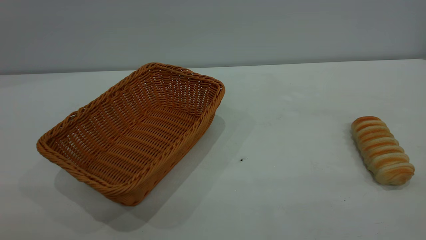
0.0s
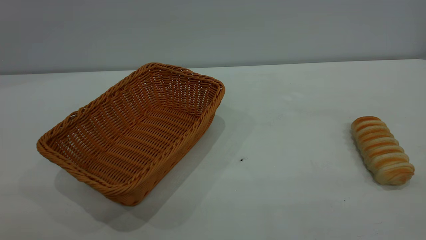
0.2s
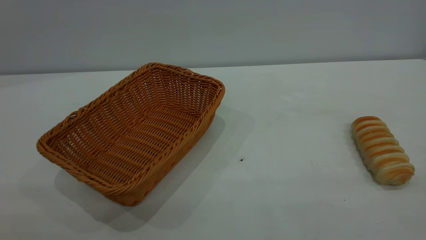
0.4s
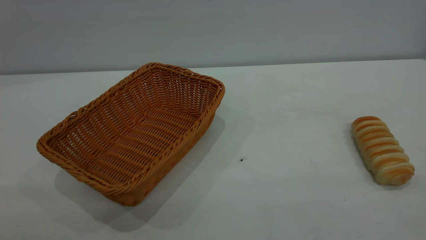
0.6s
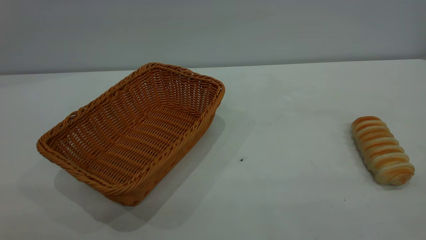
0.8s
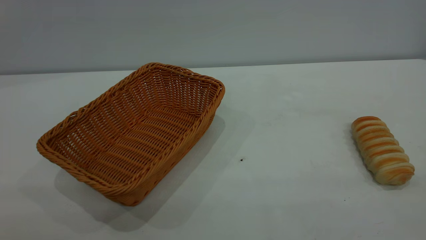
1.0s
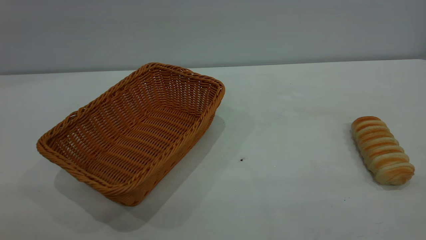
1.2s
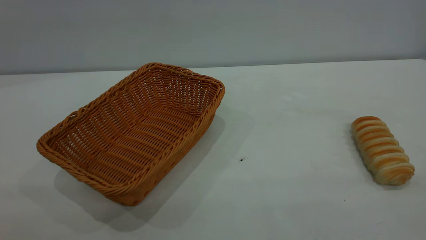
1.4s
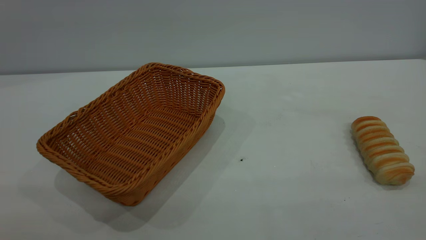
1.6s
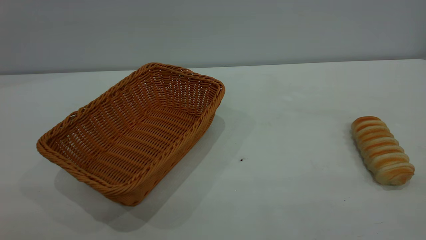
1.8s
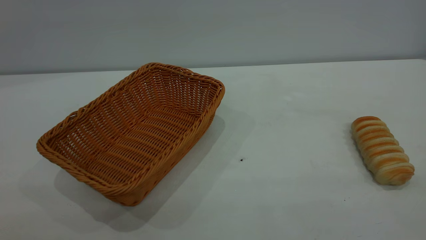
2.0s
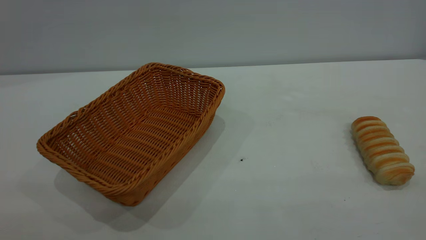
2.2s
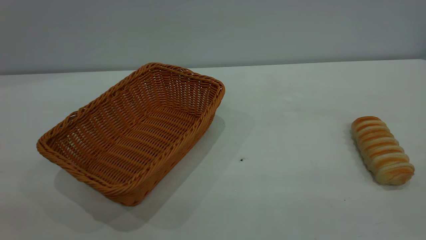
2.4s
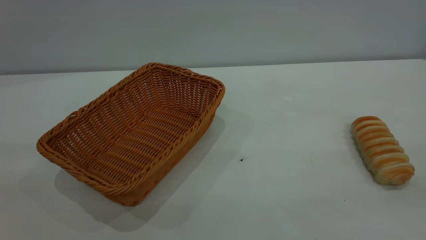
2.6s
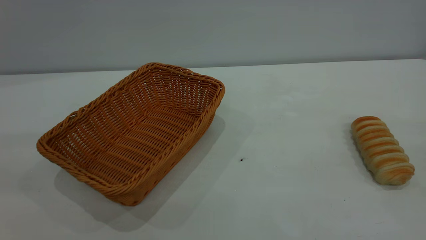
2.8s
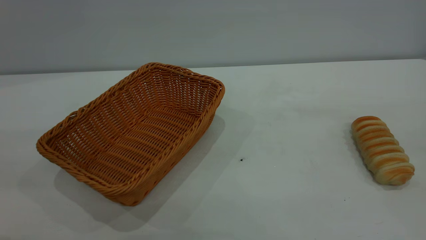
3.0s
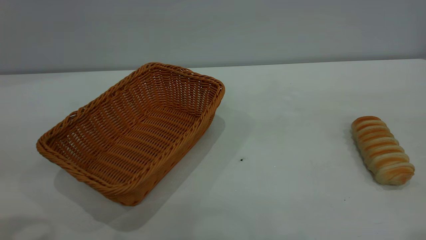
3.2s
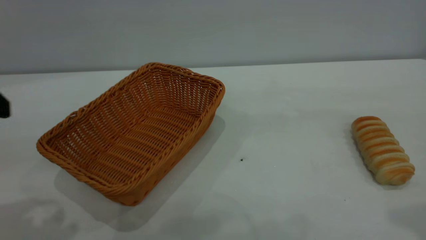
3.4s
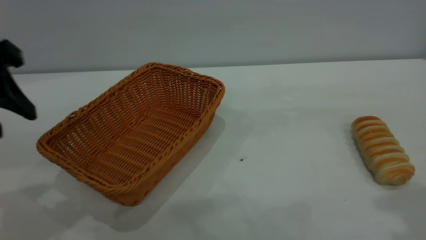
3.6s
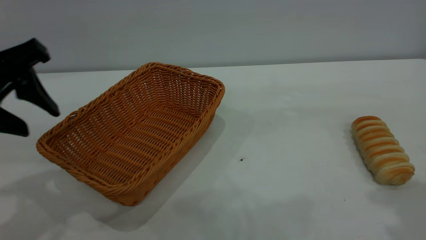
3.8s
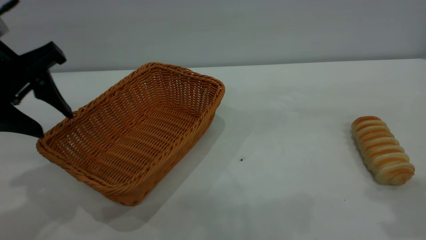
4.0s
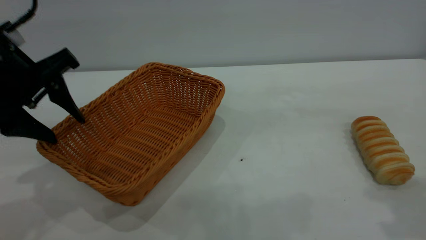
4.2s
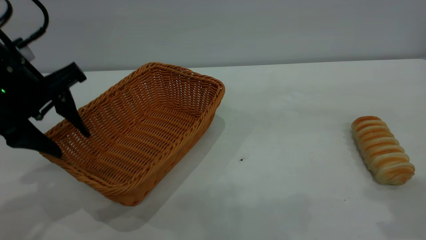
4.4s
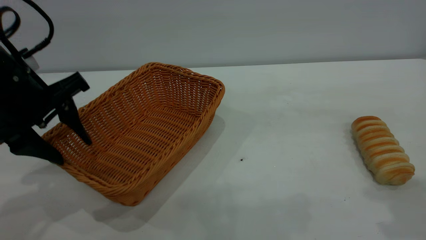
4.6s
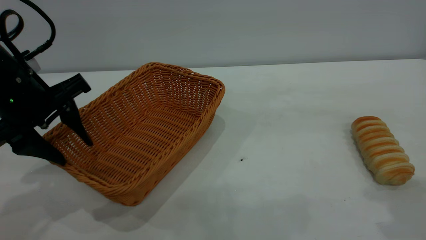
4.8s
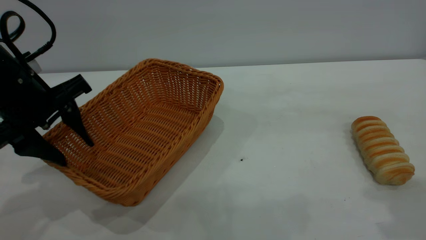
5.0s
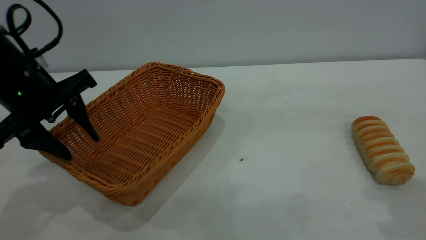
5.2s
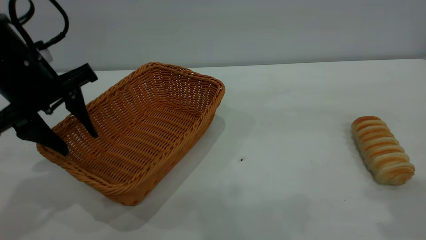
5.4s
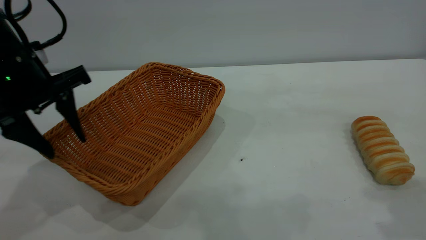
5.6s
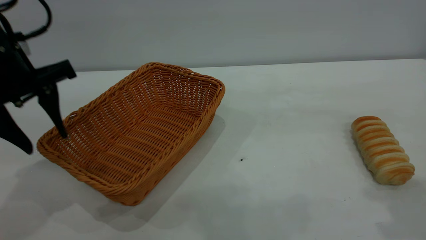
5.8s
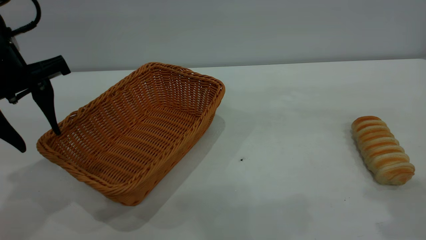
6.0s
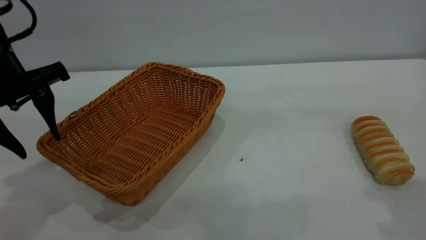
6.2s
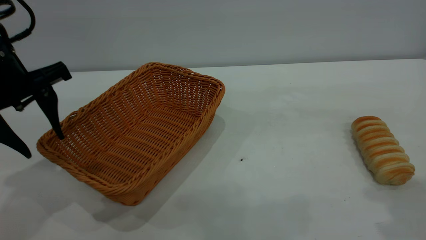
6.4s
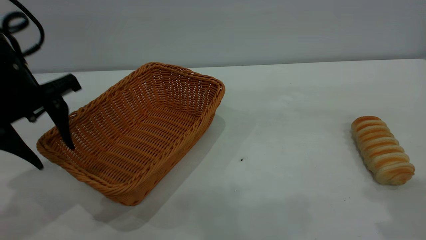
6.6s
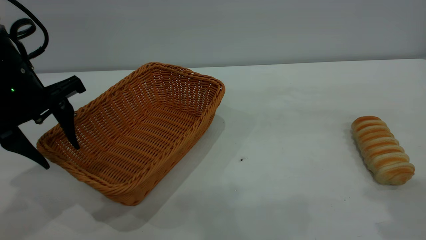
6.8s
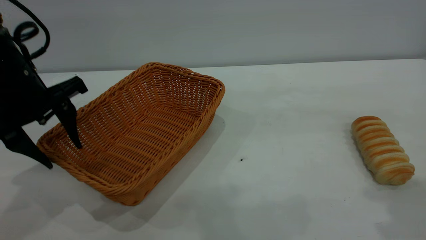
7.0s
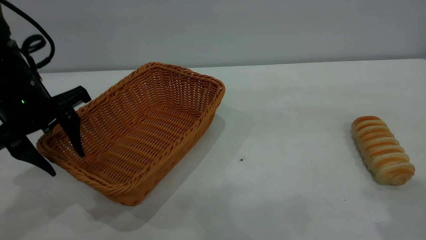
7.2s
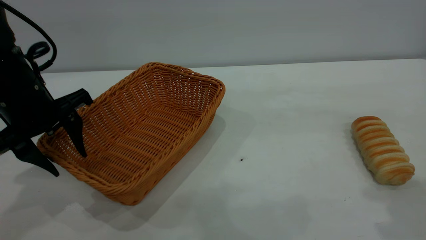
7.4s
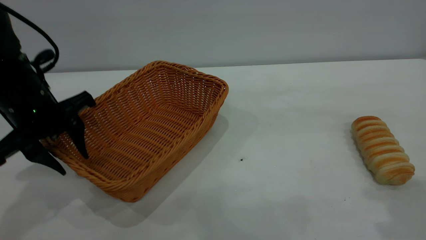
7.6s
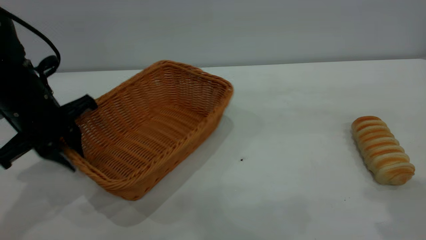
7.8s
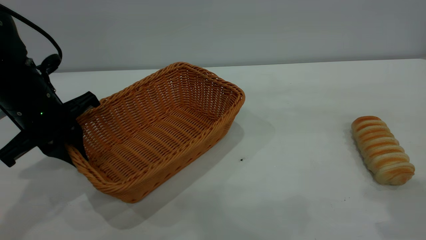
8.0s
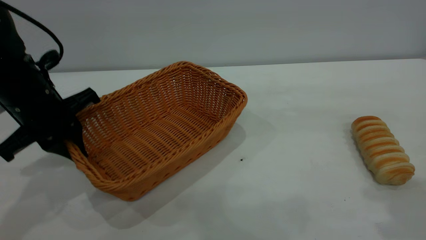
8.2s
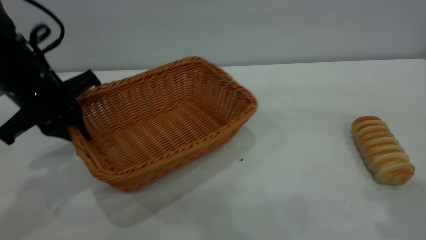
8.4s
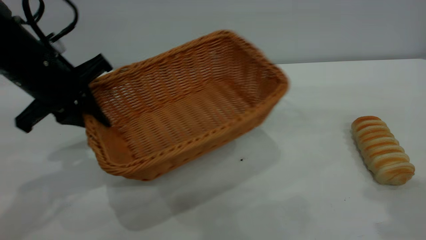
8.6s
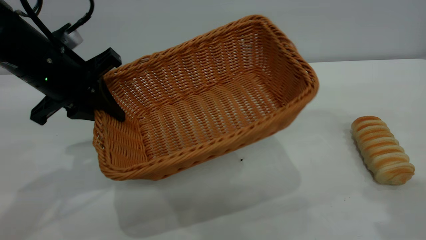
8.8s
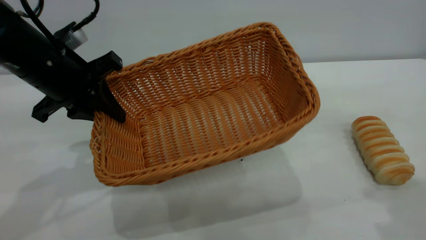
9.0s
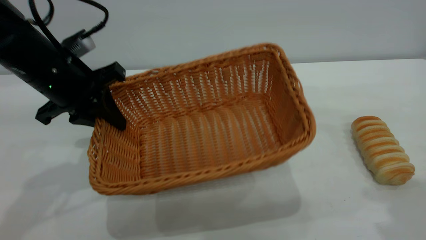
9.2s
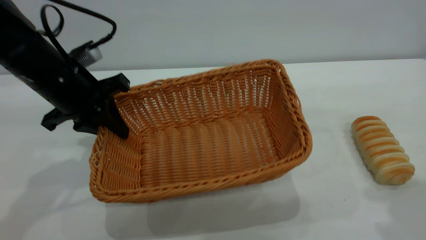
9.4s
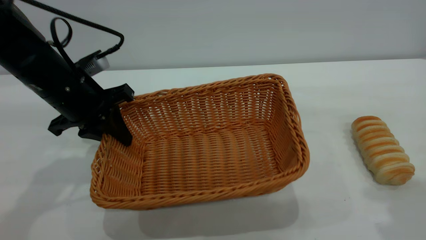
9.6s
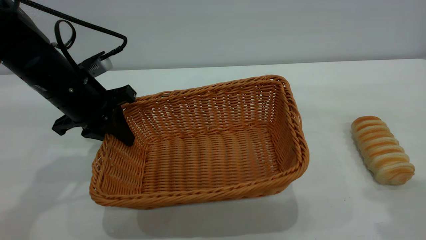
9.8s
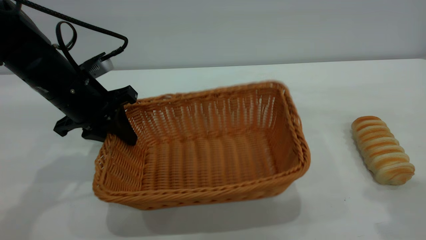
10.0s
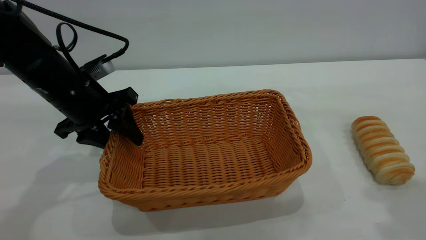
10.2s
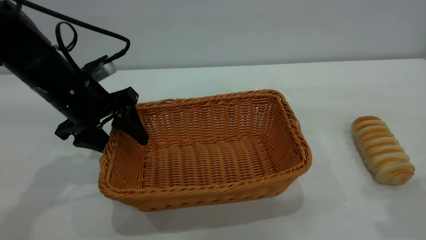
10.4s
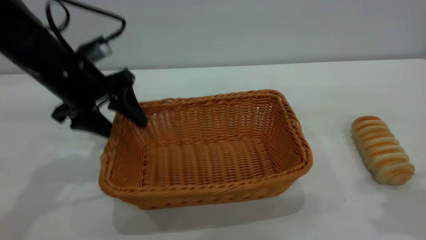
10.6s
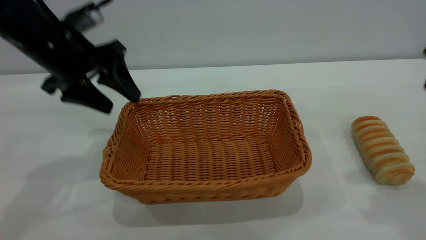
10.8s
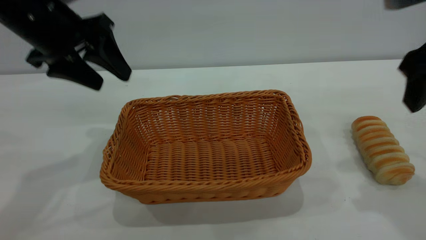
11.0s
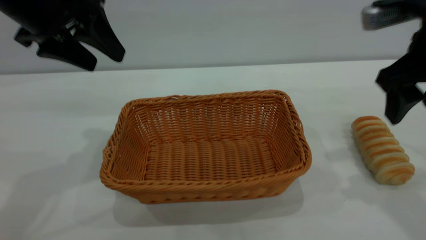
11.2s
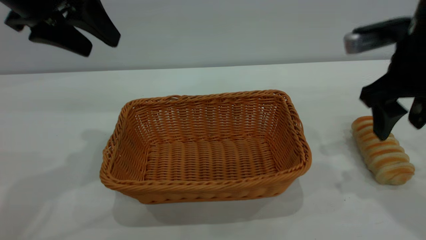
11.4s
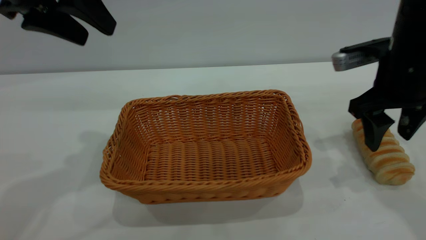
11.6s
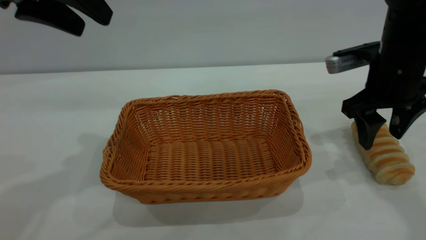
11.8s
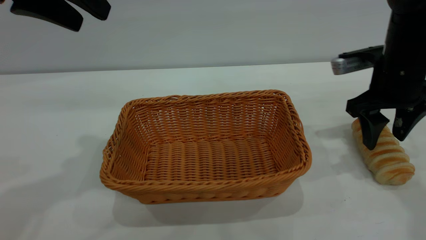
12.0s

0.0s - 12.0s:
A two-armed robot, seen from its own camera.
Task of the whole recording: One hand grasps the yellow basket and places it in the middle of the table, while the other hand picks up the long bread and puts it into the yellow basket.
Step, 0.0s - 10.6s: Move the basket to the center of view.
0.0s - 1.6s: Both grippers stay about where they are.
3.0s - 4.4s: The left gripper travels forward and downward by some 20 cm.
4.4s - 6.0s: The grippers stay close to where they were, moving slightly.
6.0s - 7.6s: The left gripper moves downward, about 10 cm.
7.6s - 9.0s: The left gripper closes its fingers.
9.0s - 10.4s: The left gripper opens.
10.4s - 12.0s: The right gripper moves downward and forward, some 25 cm. Meanwhile the left gripper heads upward, covering roughly 20 cm.

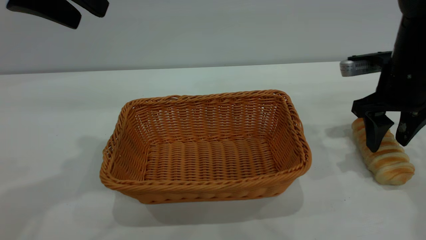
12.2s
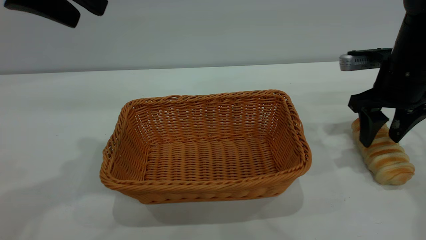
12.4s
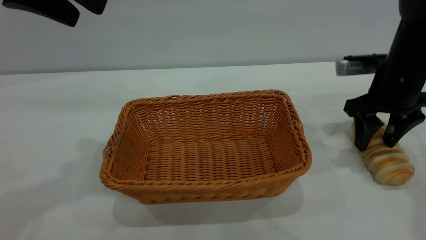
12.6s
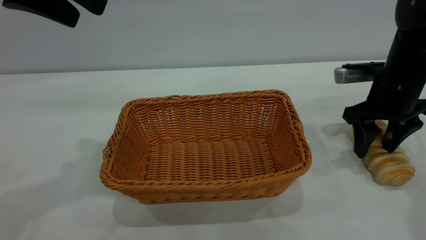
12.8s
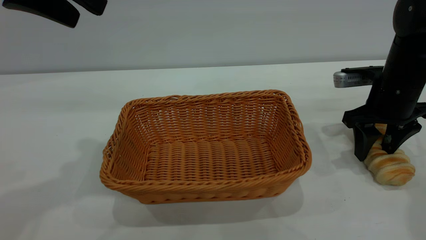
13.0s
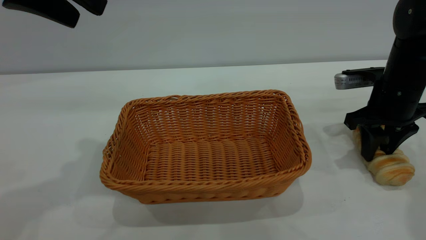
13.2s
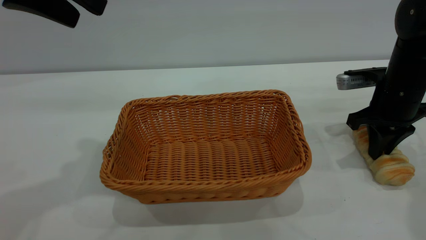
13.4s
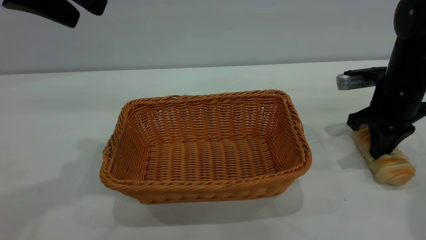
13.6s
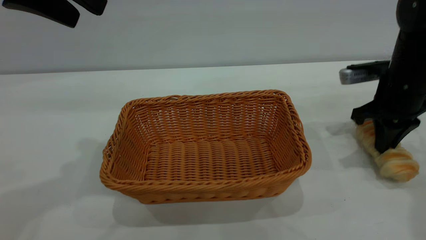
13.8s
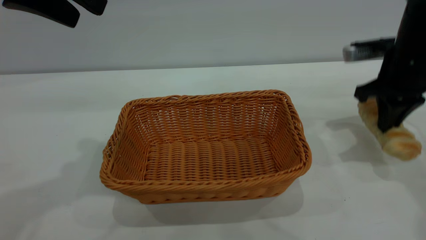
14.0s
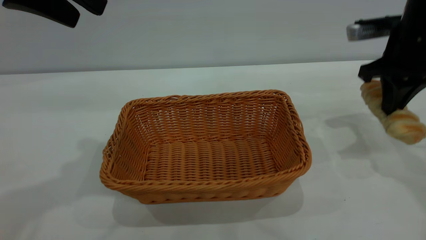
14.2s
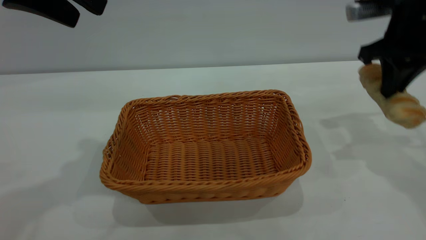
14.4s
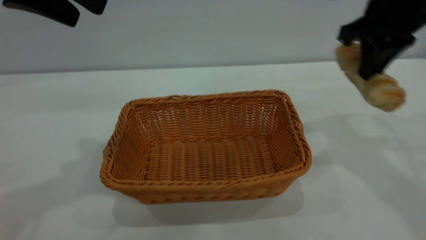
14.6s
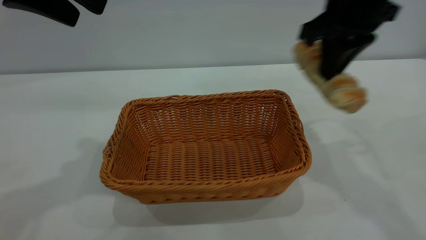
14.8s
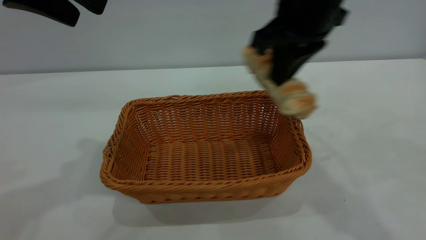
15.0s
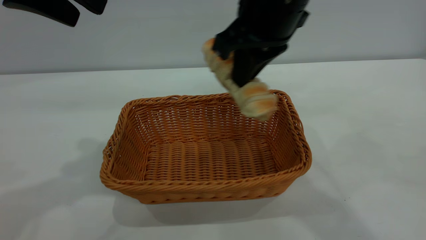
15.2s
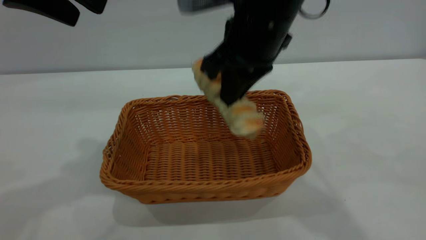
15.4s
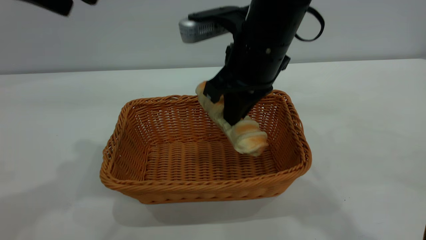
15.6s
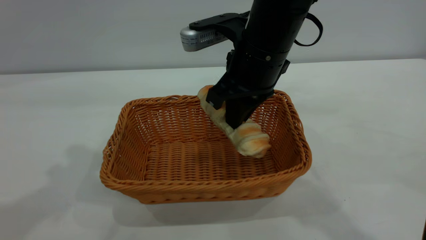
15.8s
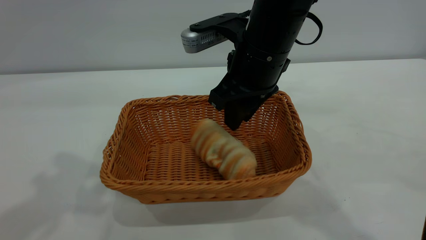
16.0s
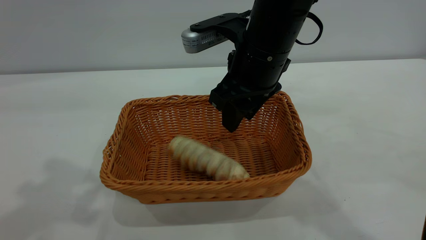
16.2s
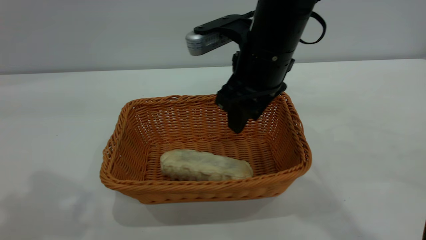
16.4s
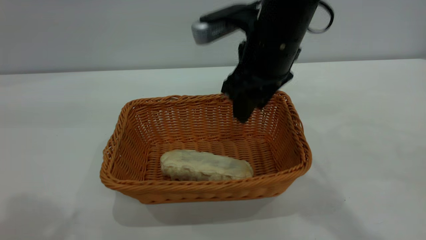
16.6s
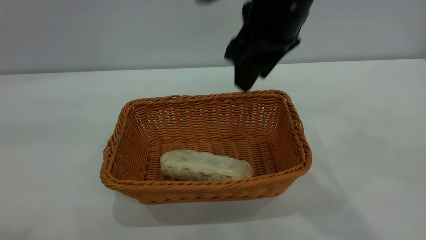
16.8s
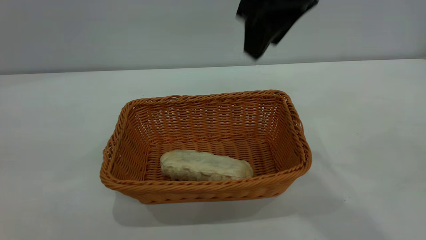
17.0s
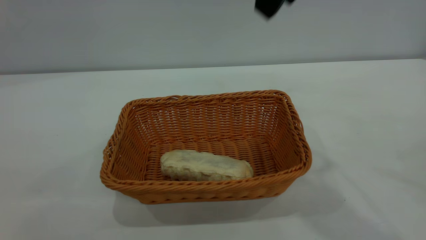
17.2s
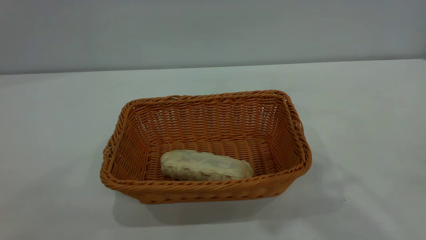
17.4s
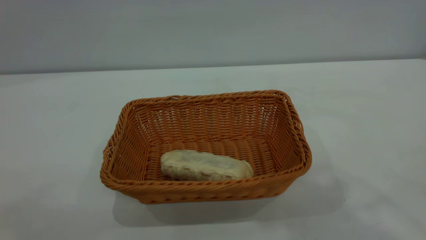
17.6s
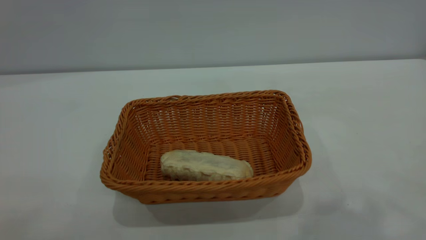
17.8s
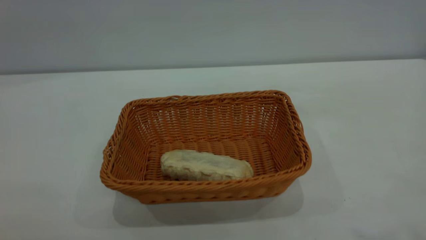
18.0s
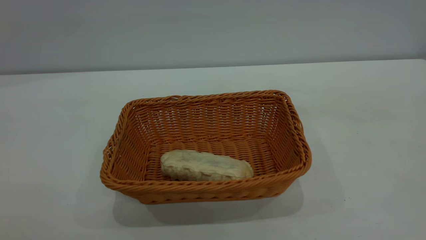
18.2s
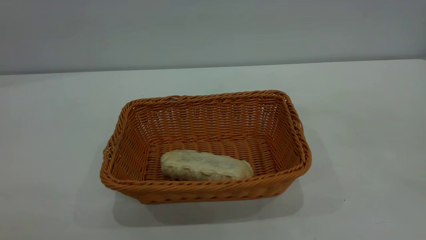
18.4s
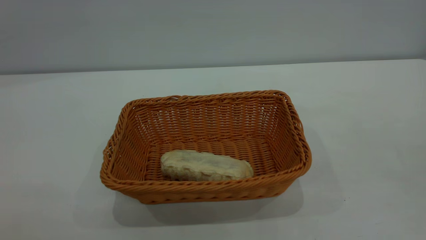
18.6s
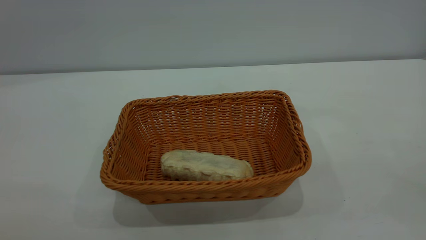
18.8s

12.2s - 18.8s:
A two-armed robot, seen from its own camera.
Task of the whole recording: One hand grasps the yellow basket and places it in the middle of the table, while the other hand picks up the long bread and puts it into the yellow basket.
Step, 14.2s - 16.8s: place the bread into the basket.
12.2s - 13.8s: The right gripper closes its fingers.
13.8s - 15.4s: The right gripper is displaced to the left and upward by some 25 cm.
15.4s - 17.2s: The left gripper is displaced backward by about 30 cm. The right gripper goes some 15 cm upward, and opens.
